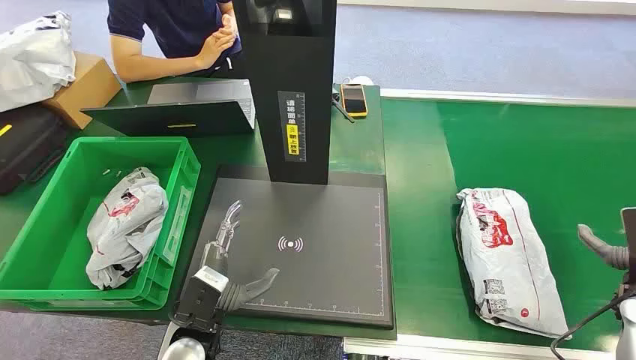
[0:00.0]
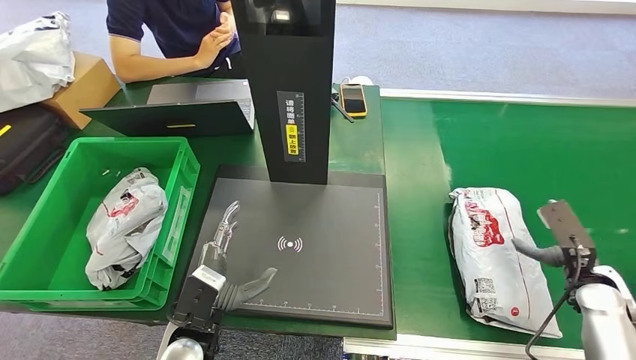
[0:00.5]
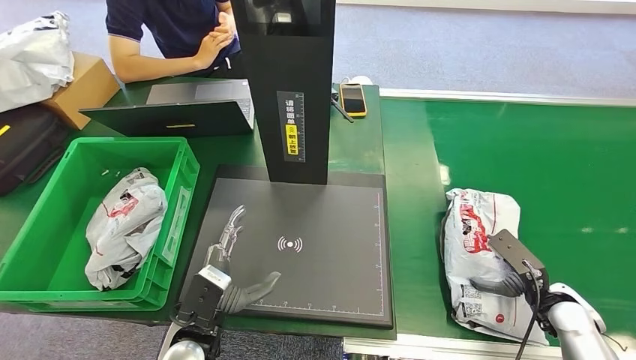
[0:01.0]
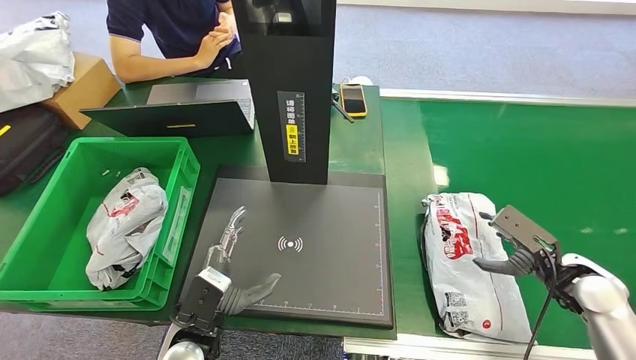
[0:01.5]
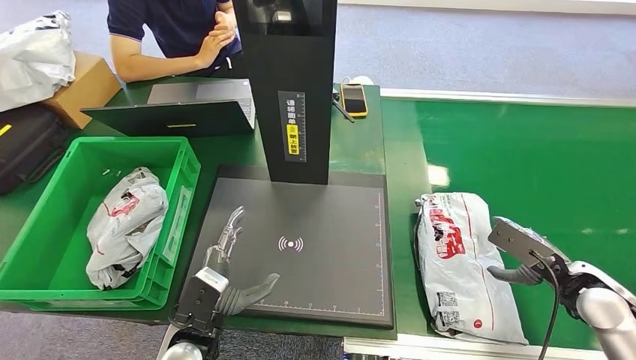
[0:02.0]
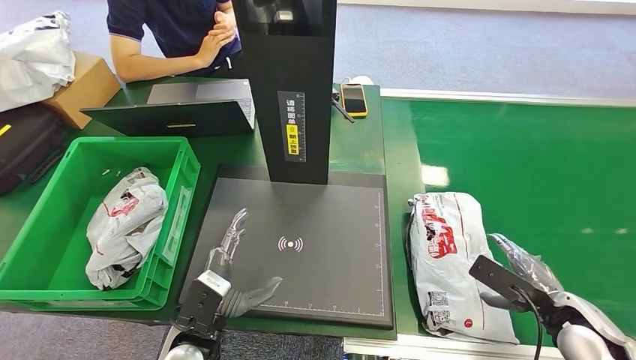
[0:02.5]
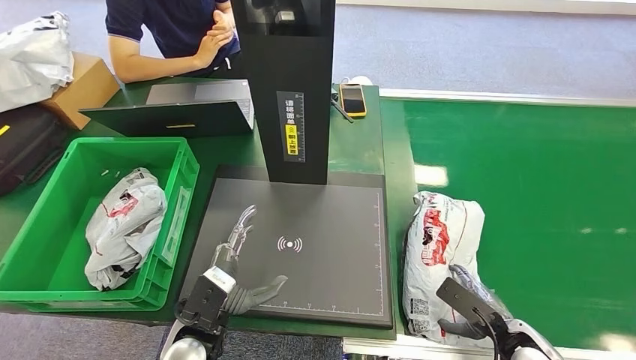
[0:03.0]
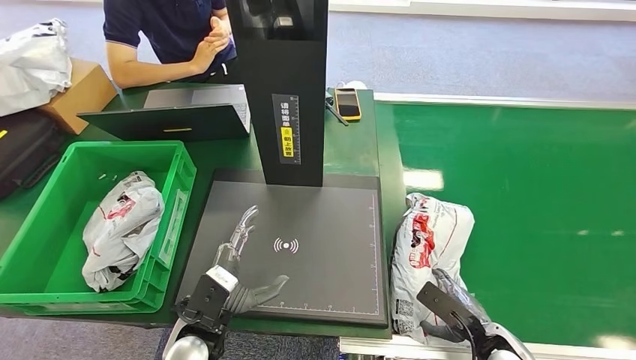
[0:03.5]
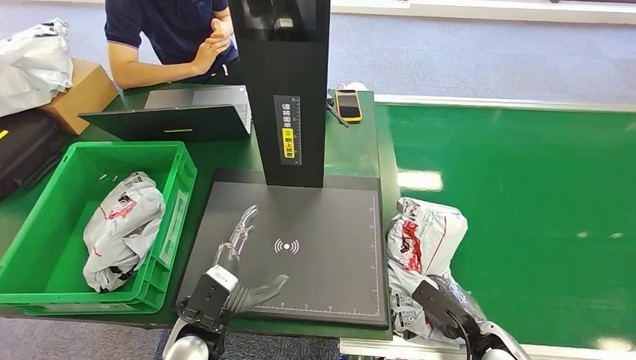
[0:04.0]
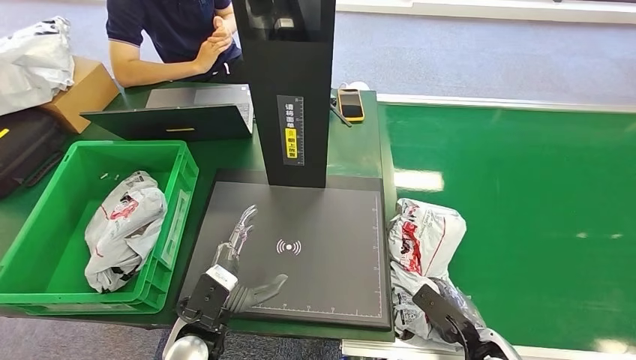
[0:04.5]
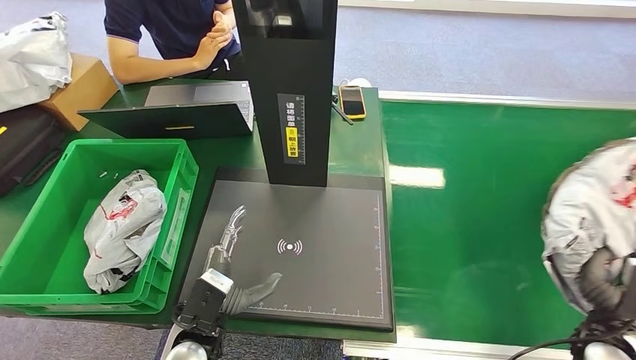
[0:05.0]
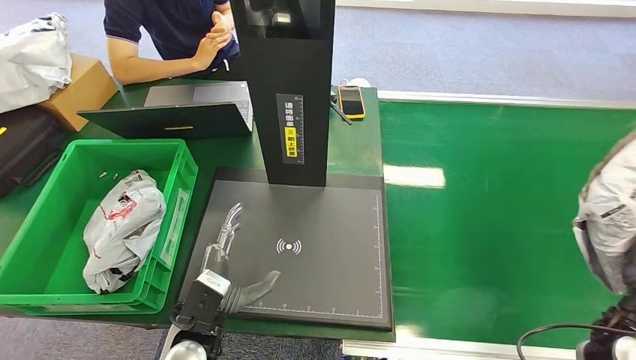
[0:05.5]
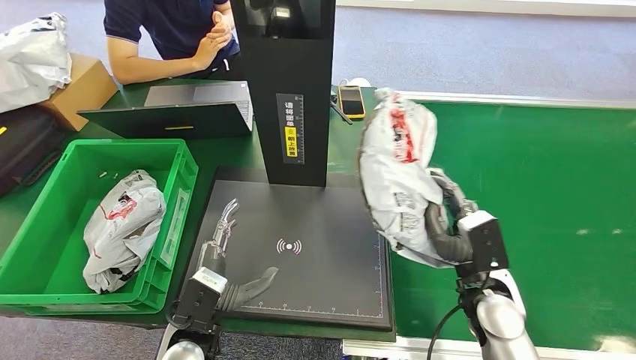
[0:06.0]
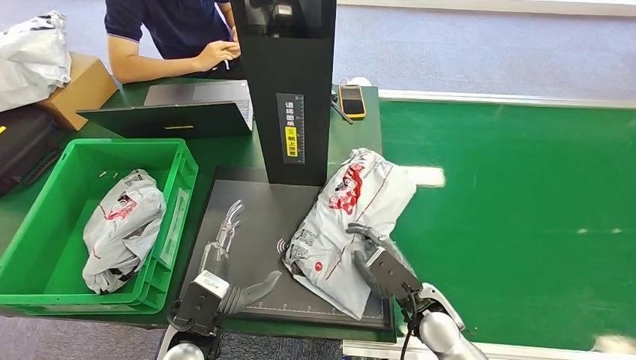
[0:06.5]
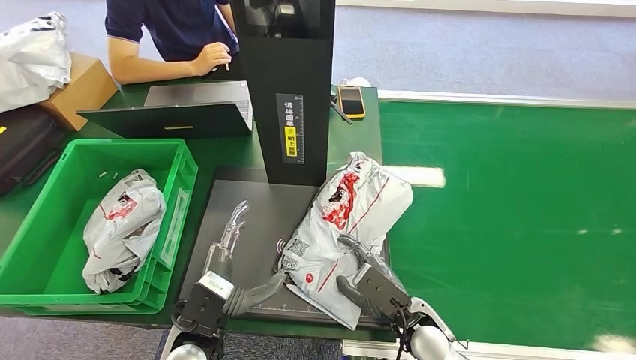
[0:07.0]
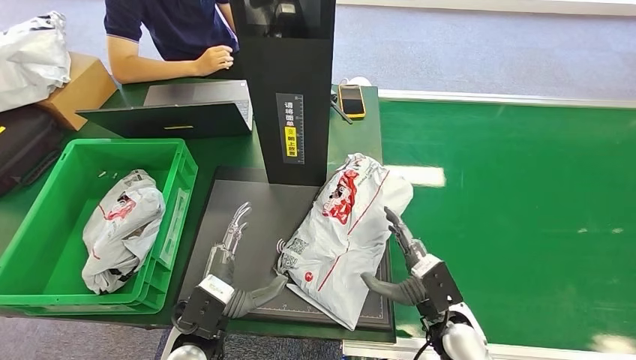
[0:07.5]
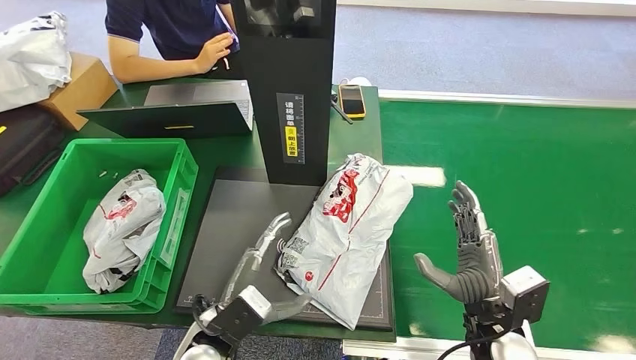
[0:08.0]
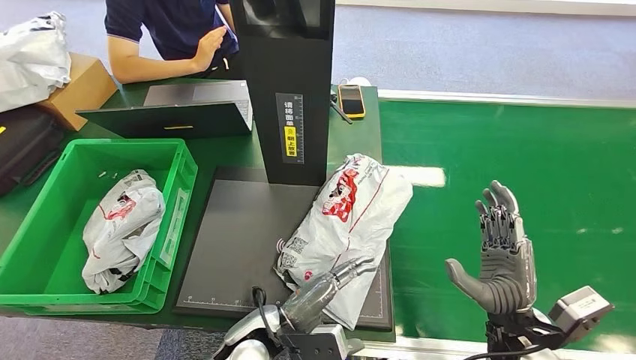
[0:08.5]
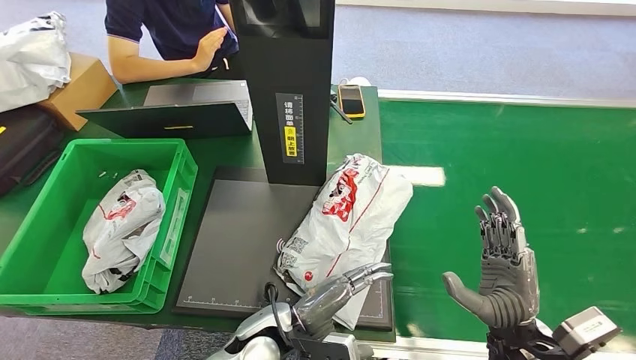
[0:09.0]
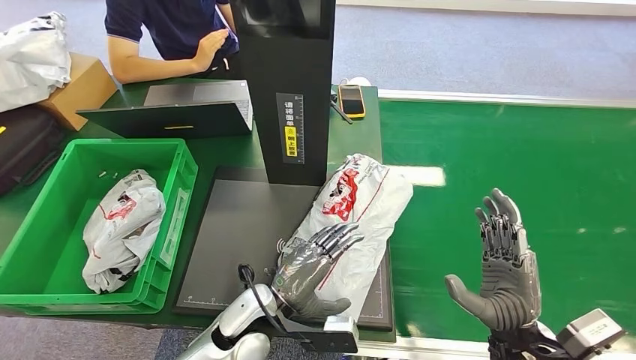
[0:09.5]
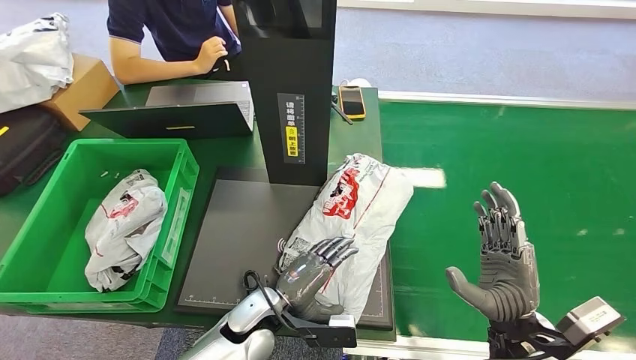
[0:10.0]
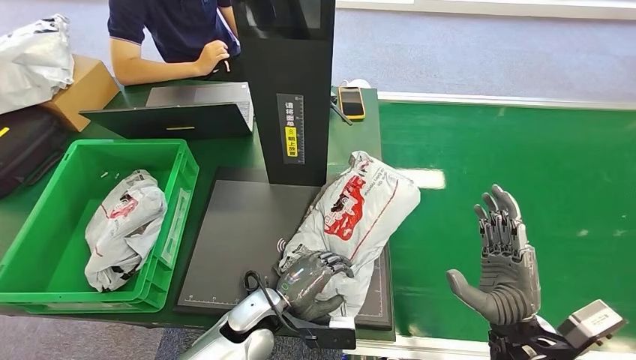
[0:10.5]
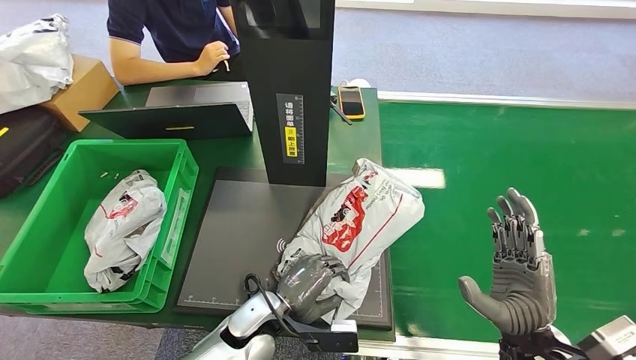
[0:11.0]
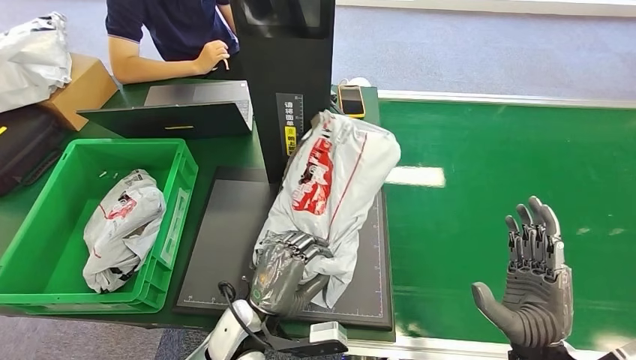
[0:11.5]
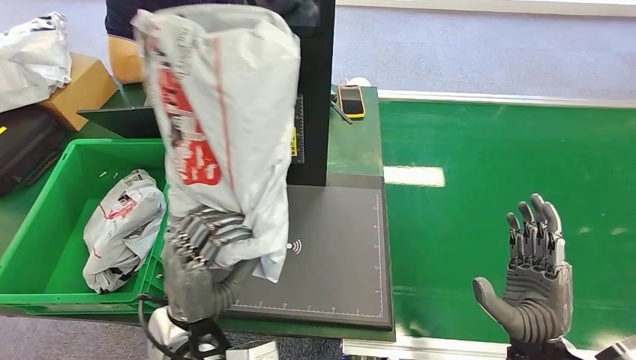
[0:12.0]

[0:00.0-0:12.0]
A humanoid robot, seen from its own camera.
Step, 0:00.0 to 0:05.0: Pick up the package from the conveyor belt.
Step, 0:06.0 to 0:07.5: Place the package onto the inbound machine.
0:06.0 to 0:08.0: The right hand goes some 5 cm backward, and moves about 10 cm downward and comes back.
0:08.0 to 0:10.0: The left hand is displaced downward and to the right by roughly 5 cm.

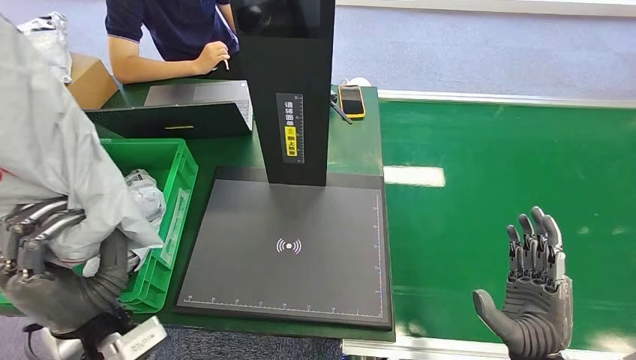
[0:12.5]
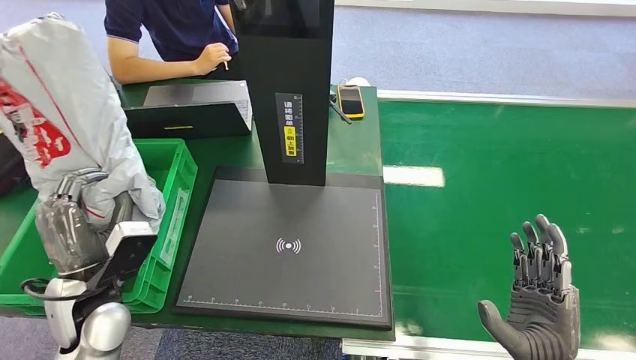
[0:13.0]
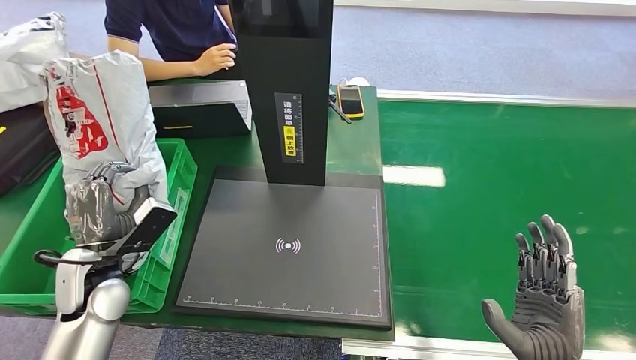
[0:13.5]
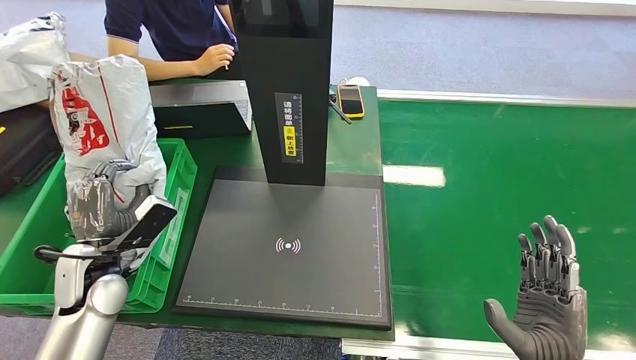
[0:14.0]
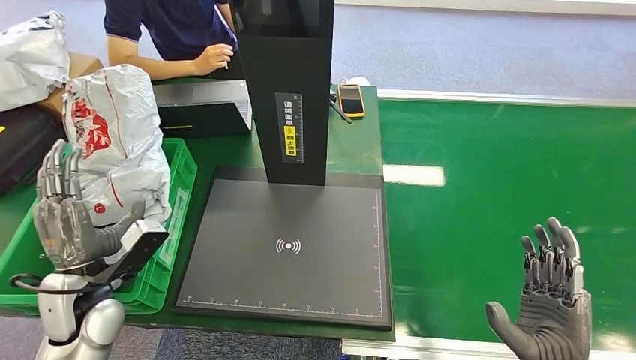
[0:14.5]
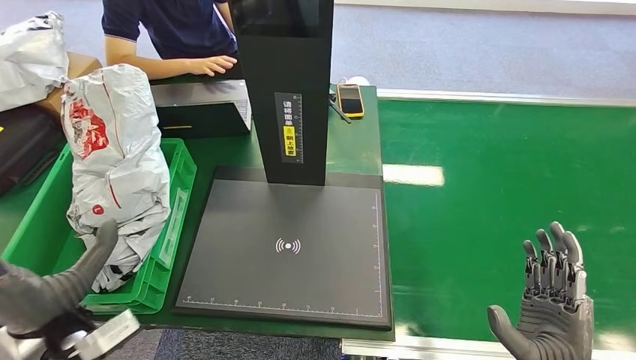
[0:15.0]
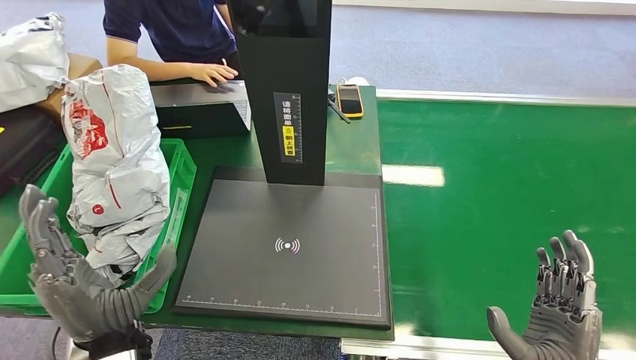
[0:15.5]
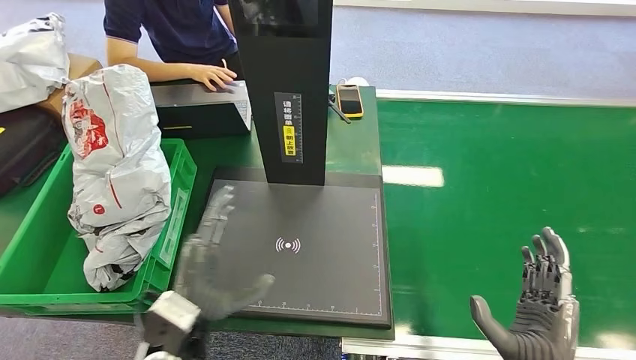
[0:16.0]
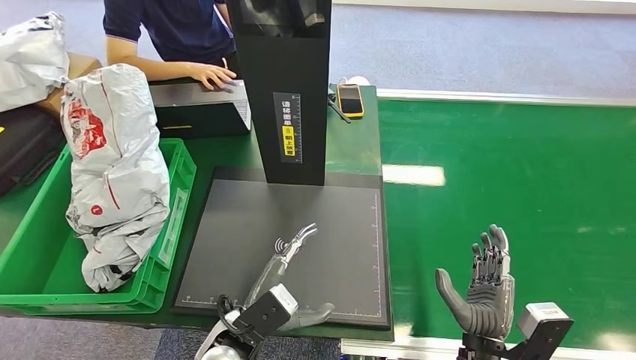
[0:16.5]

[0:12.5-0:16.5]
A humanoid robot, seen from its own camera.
Step, 0:12.5 to 0:16.5: Place the package into the parcel locker.
0:14.5 to 0:16.5: The right hand goes some 10 cm to the left and downward. The left hand heads to the right, covering roughly 25 cm.
